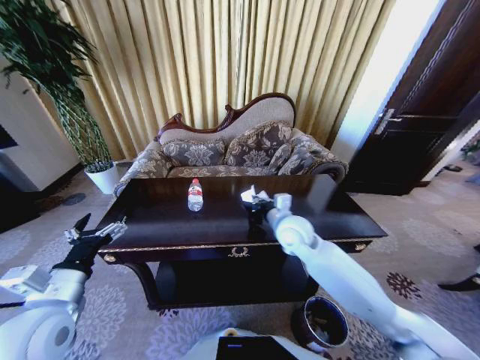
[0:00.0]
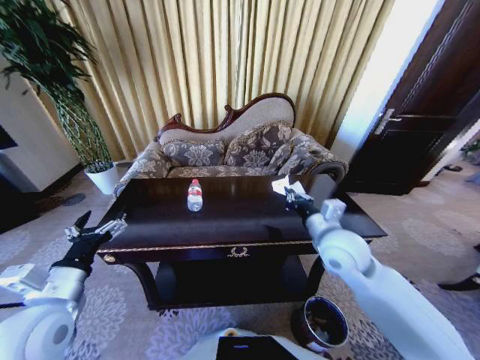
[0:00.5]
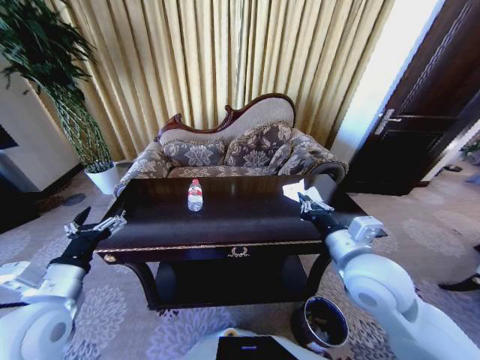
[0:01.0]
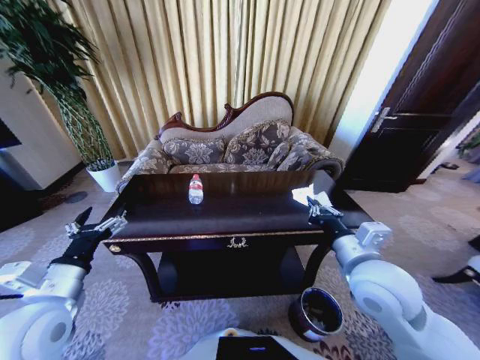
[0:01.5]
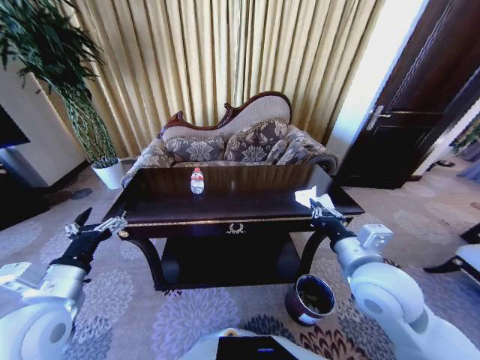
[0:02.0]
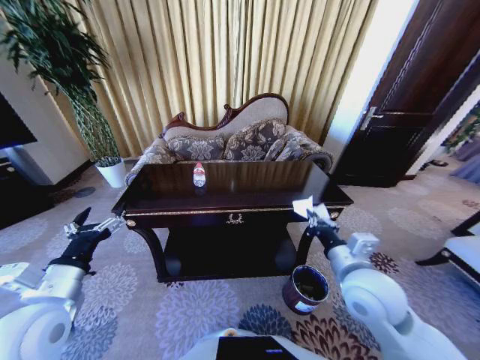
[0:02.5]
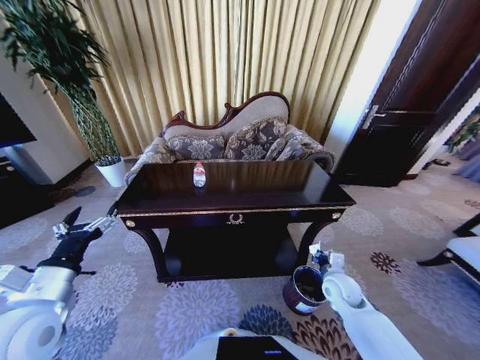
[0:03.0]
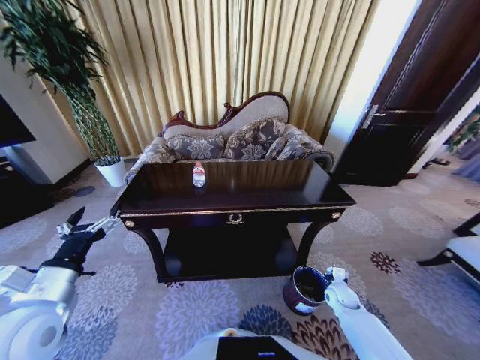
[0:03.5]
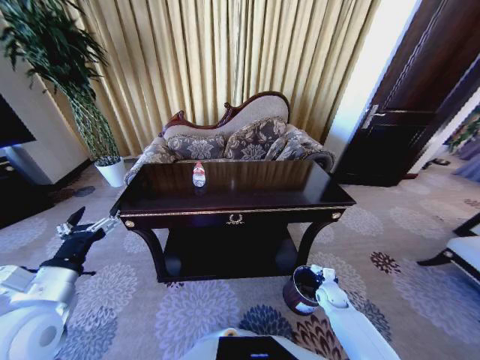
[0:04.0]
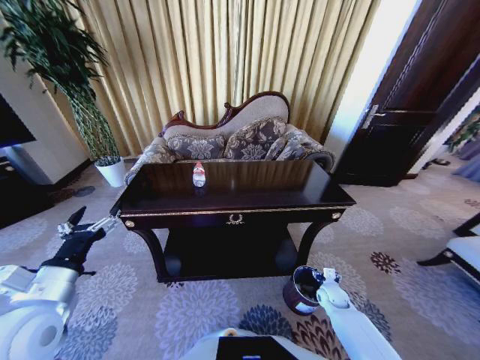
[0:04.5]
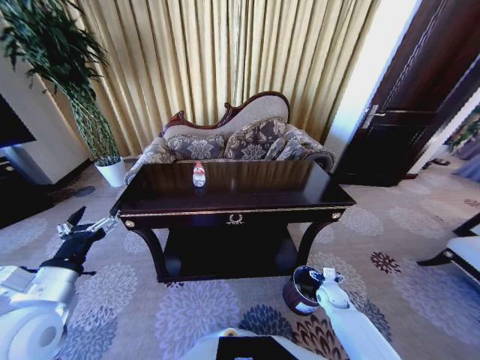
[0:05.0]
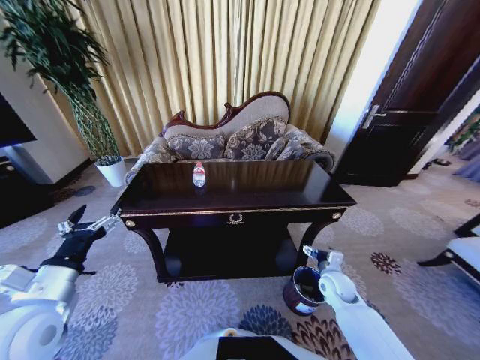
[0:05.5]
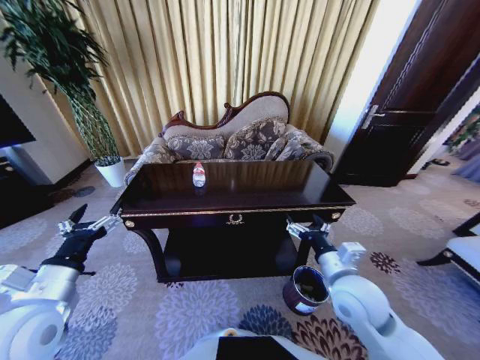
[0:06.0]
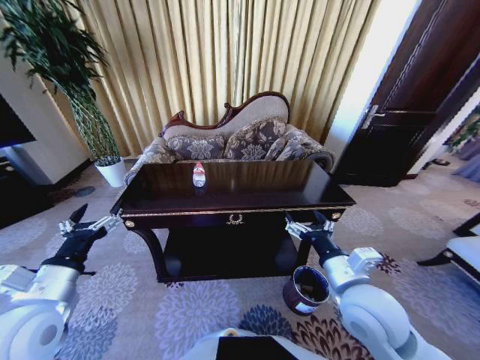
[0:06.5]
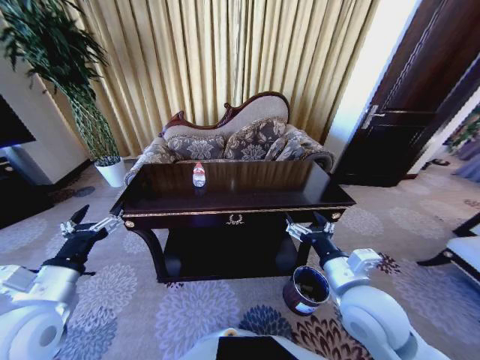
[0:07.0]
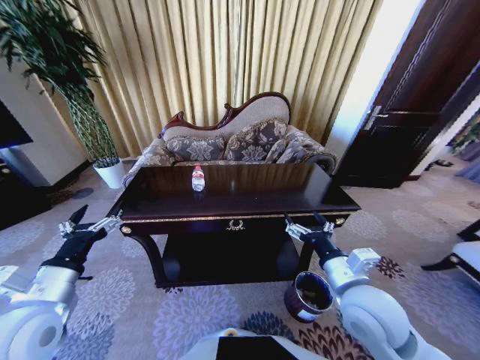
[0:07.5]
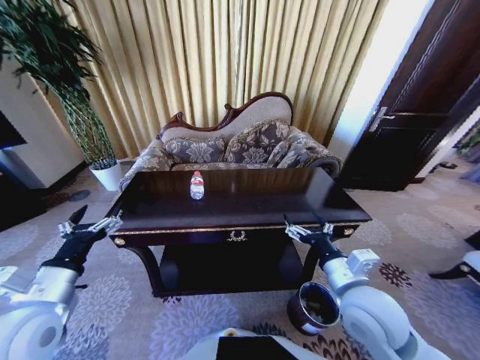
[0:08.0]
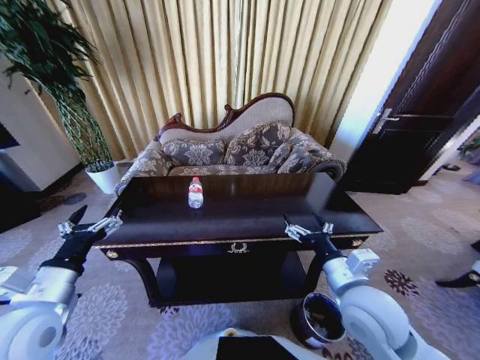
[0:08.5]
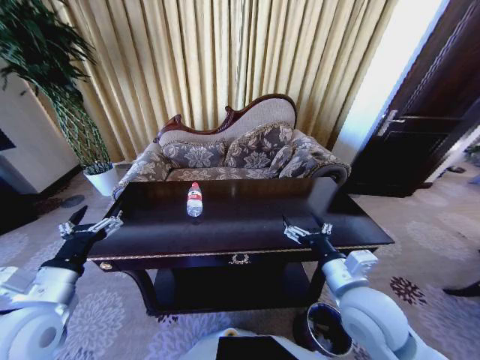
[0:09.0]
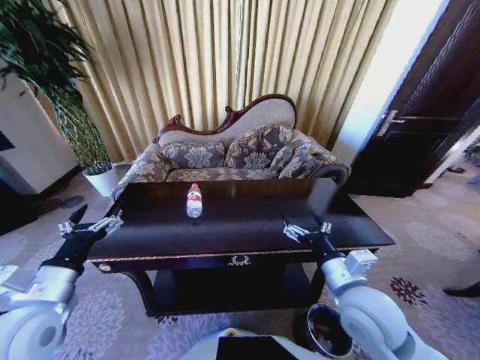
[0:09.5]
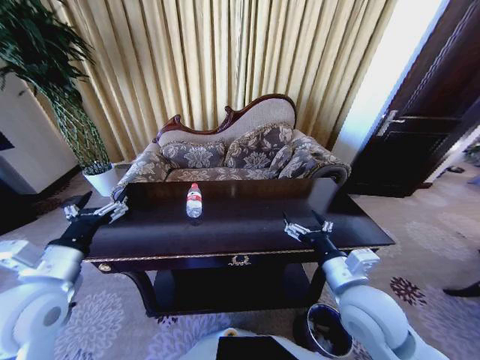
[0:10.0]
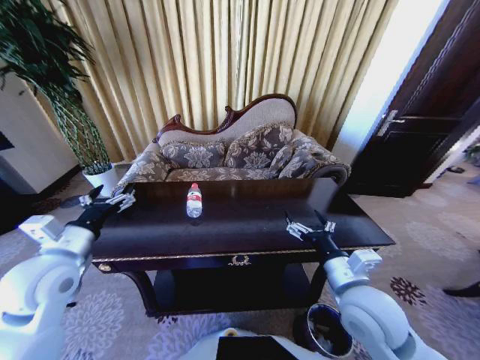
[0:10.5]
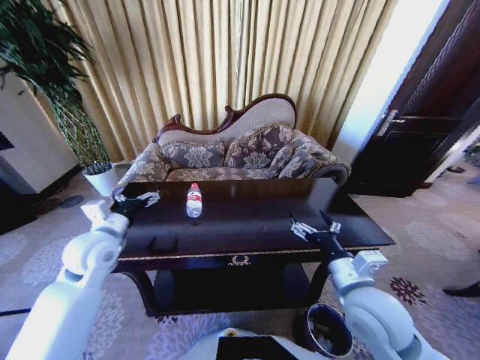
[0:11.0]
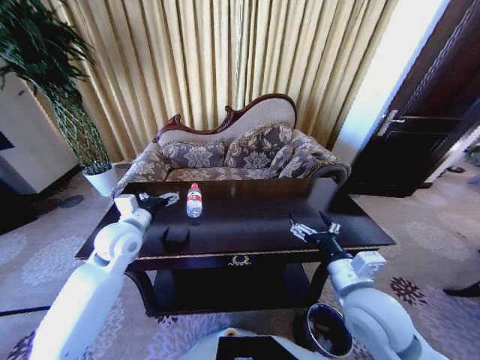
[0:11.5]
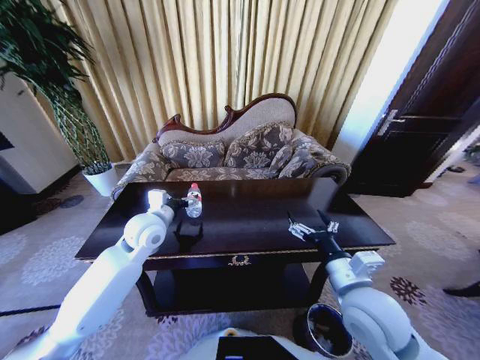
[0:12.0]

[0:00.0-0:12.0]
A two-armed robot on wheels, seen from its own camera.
Task of the whole recording: Move to the front of the table and place the trash on the table into the trash bin.
0:00.0 to 0:02.0: The right gripper shifts roughly 15 cm backward and to the right.
0:02.0 to 0:04.0: The right gripper is displaced downward by some 35 cm.
0:04.0 to 0:06.0: The right gripper is displaced upward and to the left by about 30 cm, and opens up.
0:10.0 to 0:12.0: The left gripper heads forward and to the right, covering about 20 cm.

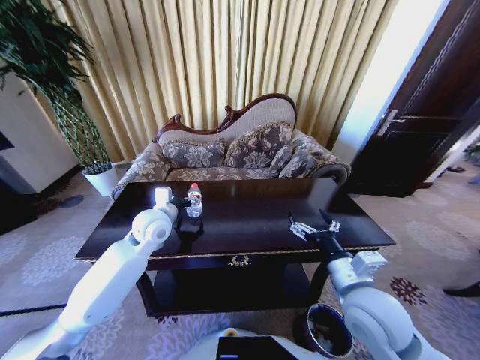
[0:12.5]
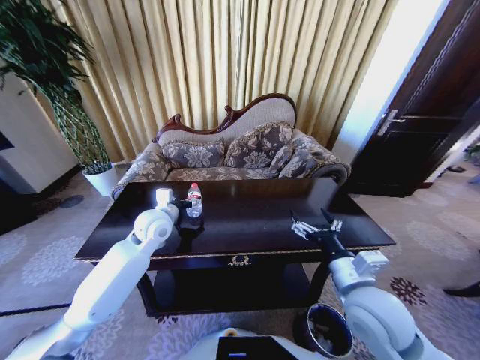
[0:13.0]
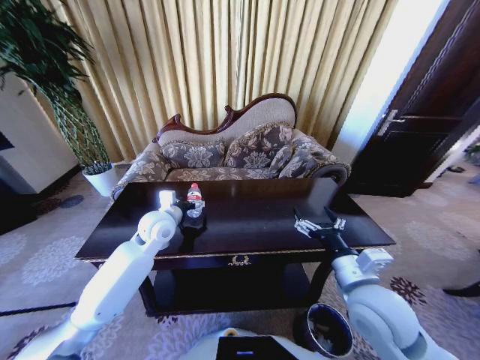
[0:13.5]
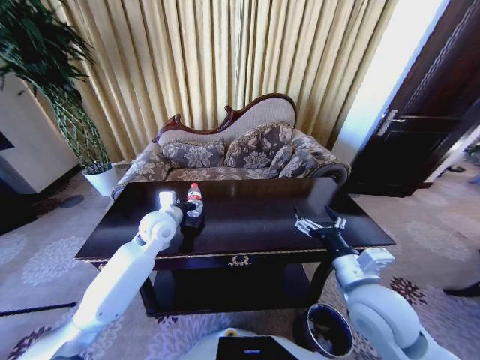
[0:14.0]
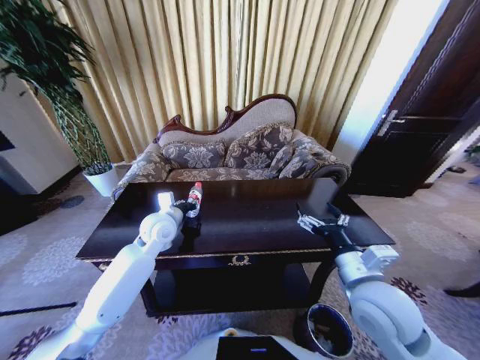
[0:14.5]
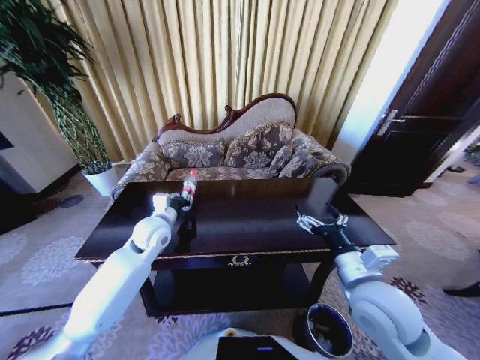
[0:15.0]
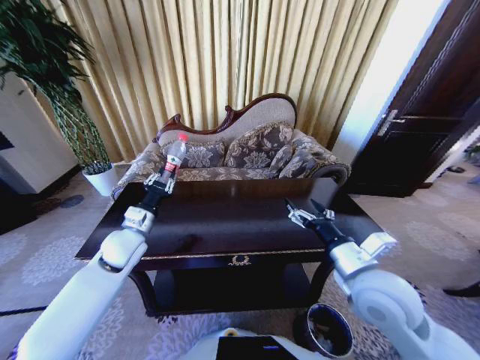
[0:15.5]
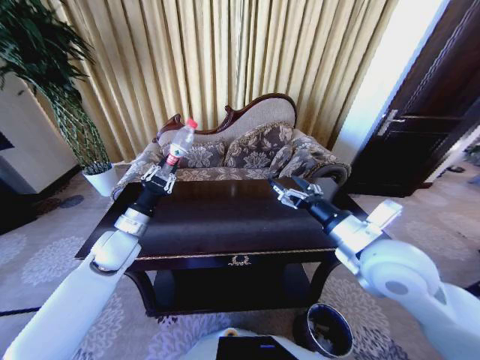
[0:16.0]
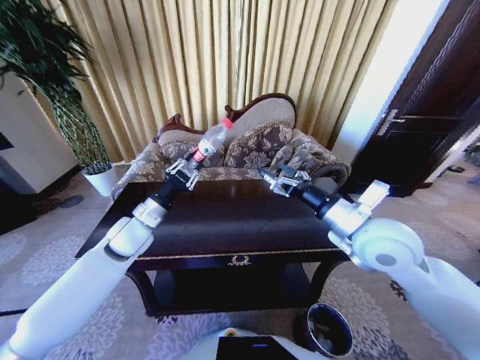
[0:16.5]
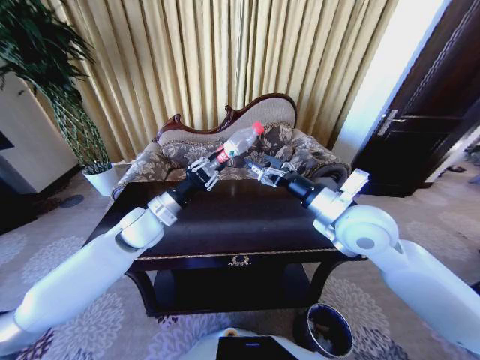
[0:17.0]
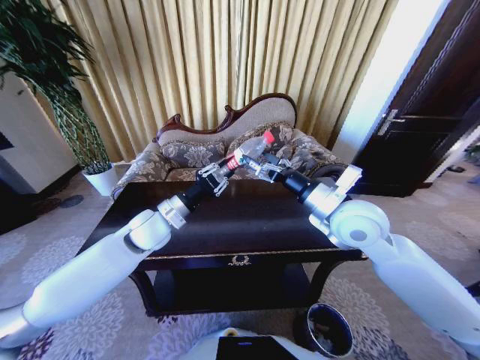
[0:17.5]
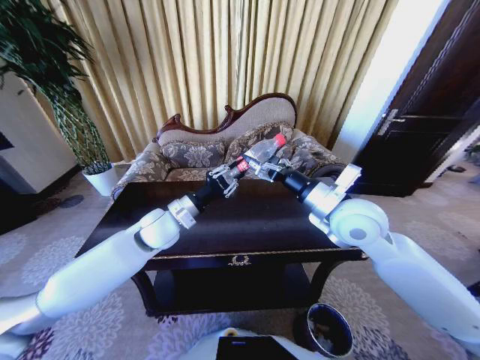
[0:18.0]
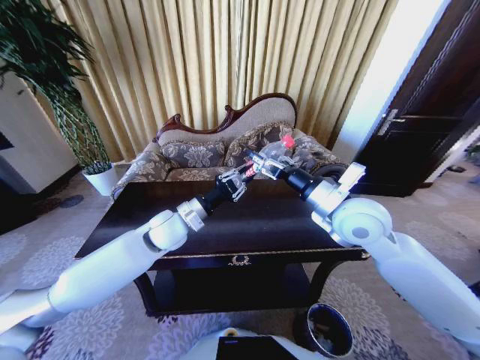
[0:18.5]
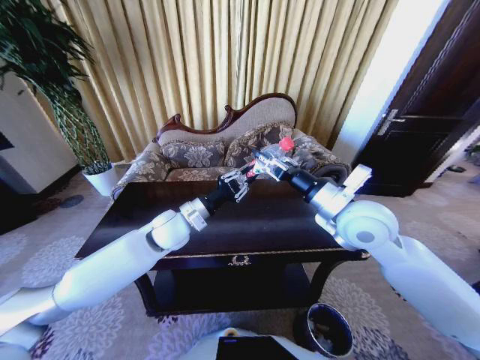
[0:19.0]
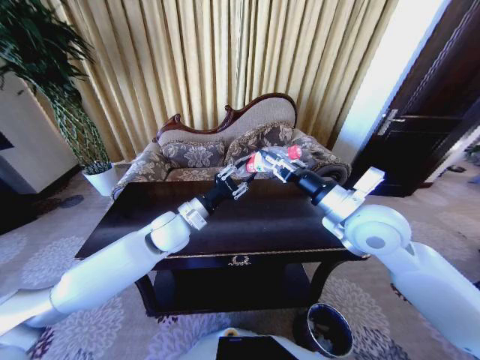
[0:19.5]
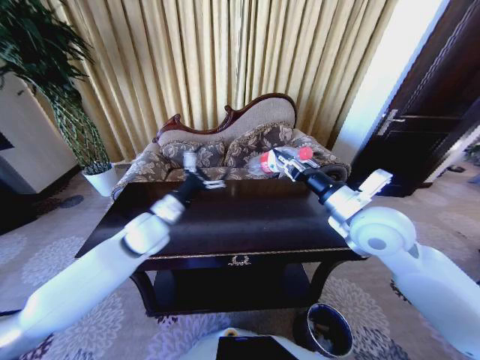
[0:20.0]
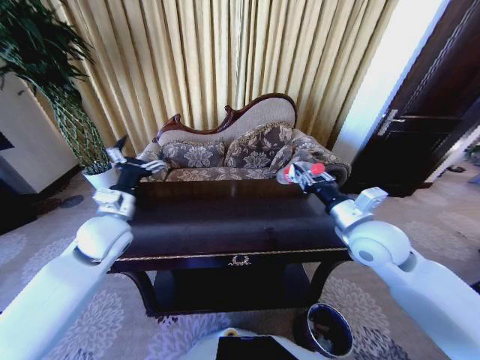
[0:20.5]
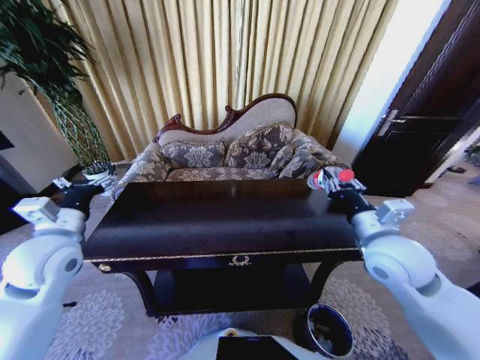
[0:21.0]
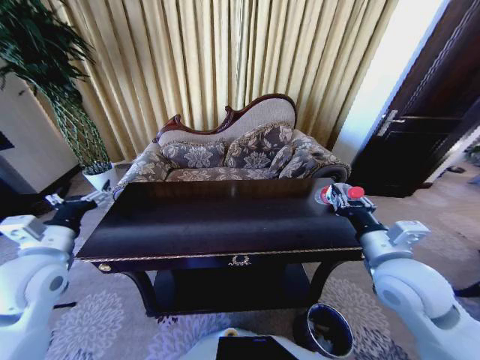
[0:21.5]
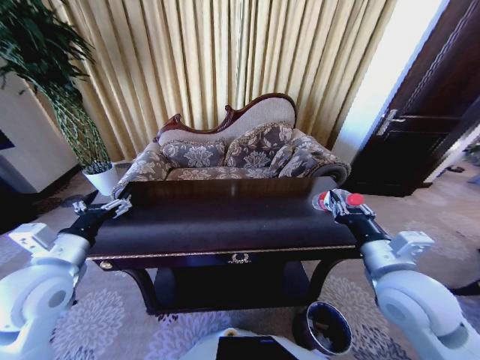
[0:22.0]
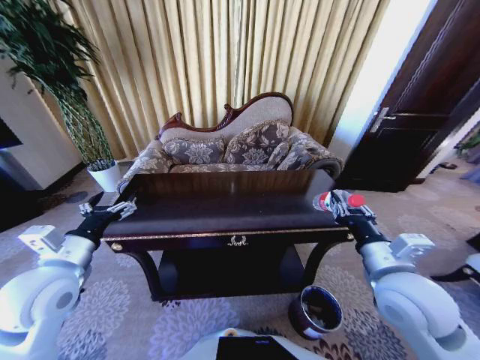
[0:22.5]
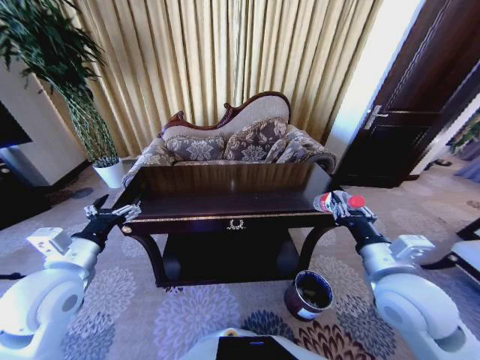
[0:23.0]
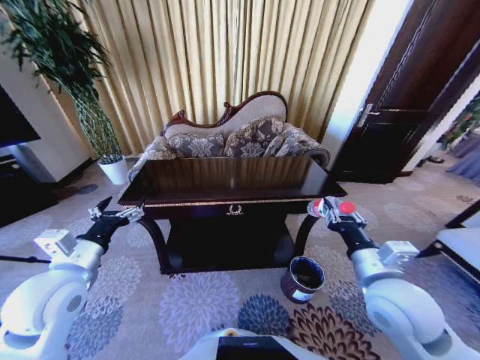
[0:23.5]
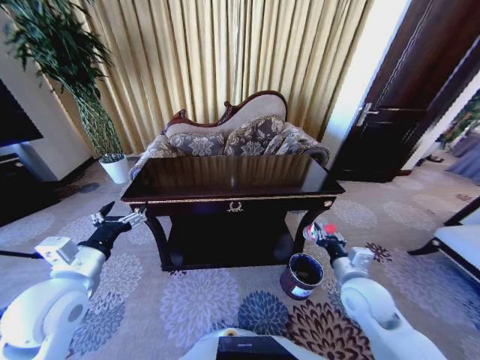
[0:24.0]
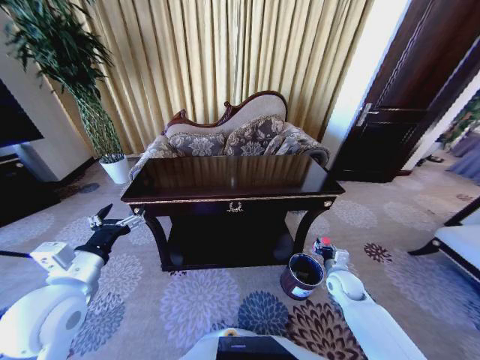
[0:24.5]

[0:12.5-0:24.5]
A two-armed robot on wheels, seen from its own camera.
Task of the whole recording: Move to the front of the table and place the trash on the table into the trash bin.
0:12.5 to 0:14.5: The left gripper closes its fingers.
0:14.5 to 0:16.5: The right gripper is displaced upward and forward by about 15 cm.
0:16.5 to 0:18.5: The left gripper goes some 10 cm to the right. Meanwhile the right gripper moves approximately 5 cm.
0:18.5 to 0:20.5: The left gripper shifts approximately 10 cm to the left, and opens; the right gripper travels to the right by approximately 5 cm, and closes its fingers.
0:20.5 to 0:22.5: The two grippers go roughly 10 cm backward.
0:22.5 to 0:24.5: The right gripper moves downward, about 25 cm.

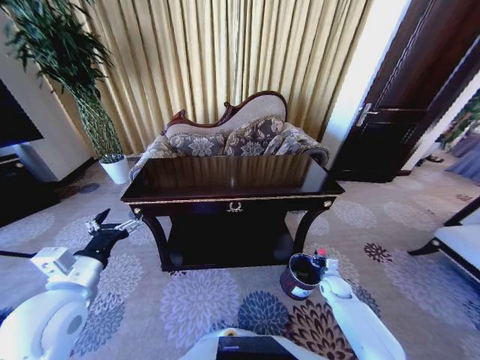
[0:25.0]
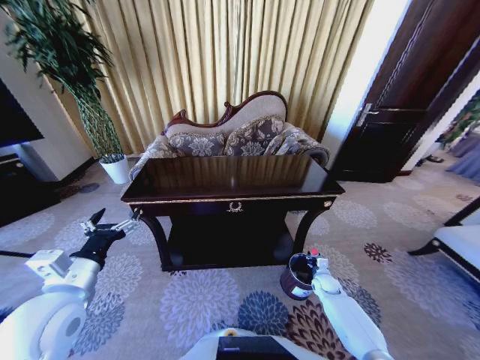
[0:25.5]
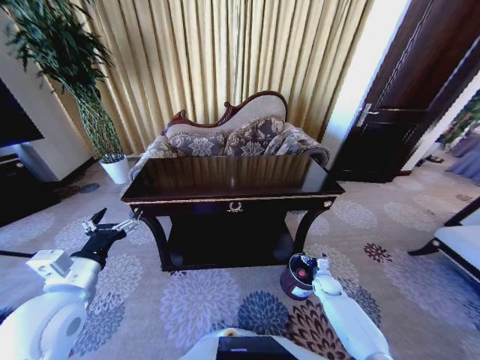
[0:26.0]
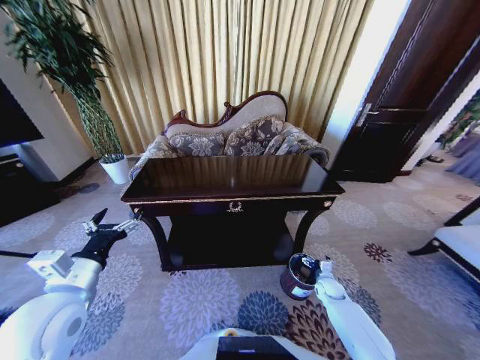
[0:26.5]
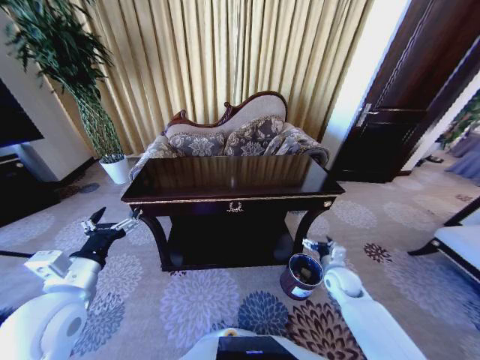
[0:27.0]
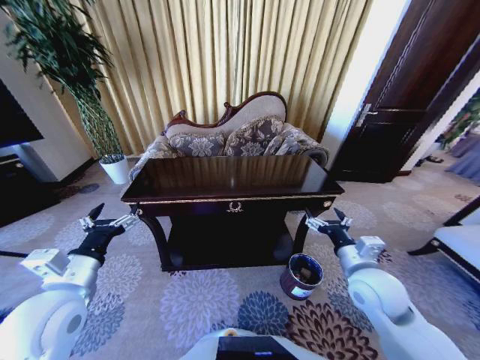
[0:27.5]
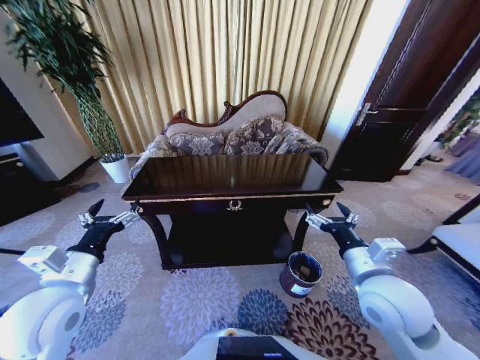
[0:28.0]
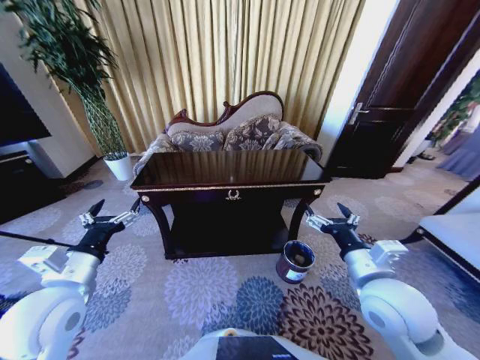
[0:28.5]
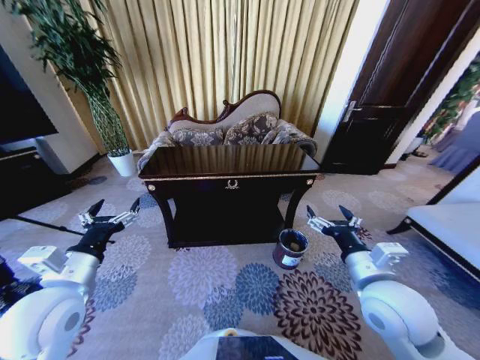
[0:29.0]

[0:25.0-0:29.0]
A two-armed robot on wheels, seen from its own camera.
Task of the whole recording: Move to the front of the table and place the trash on the table into the trash bin.
0:25.0 to 0:27.0: The right gripper is displaced upward by approximately 10 cm, and opens its fingers.
0:27.0 to 0:29.0: The right gripper is displaced upward and backward by about 25 cm.
